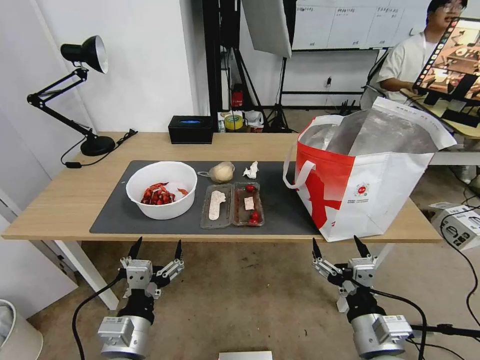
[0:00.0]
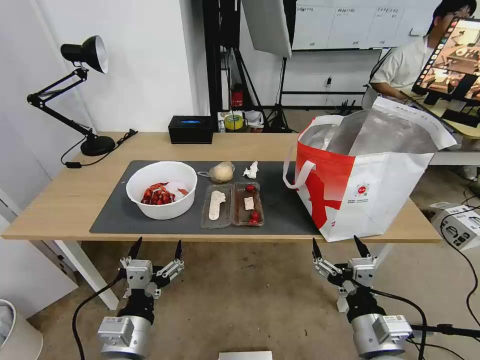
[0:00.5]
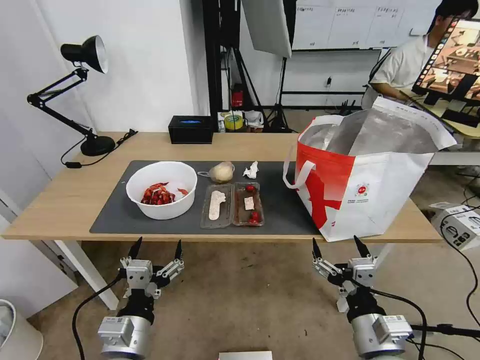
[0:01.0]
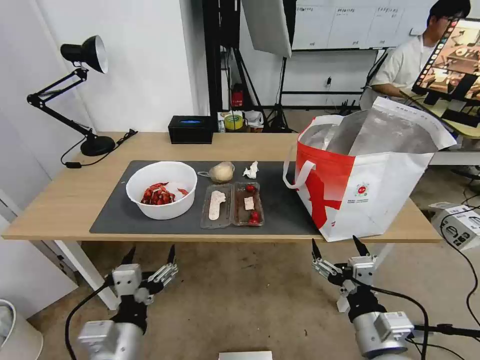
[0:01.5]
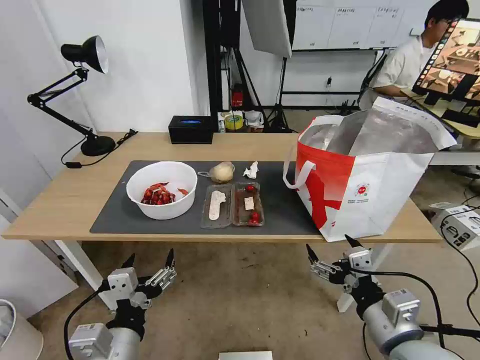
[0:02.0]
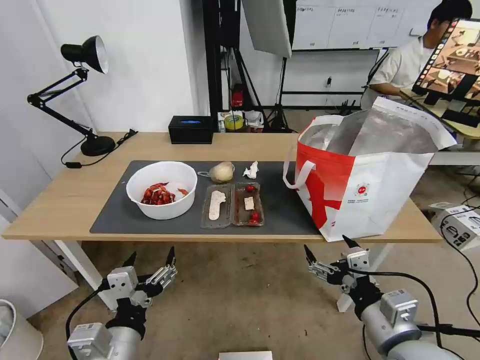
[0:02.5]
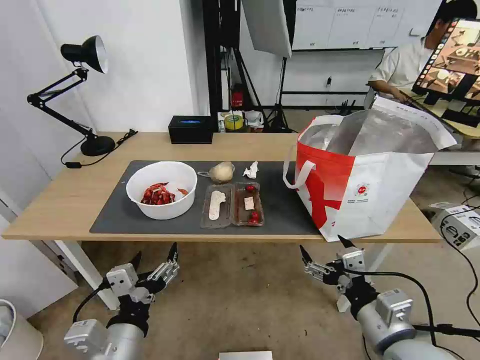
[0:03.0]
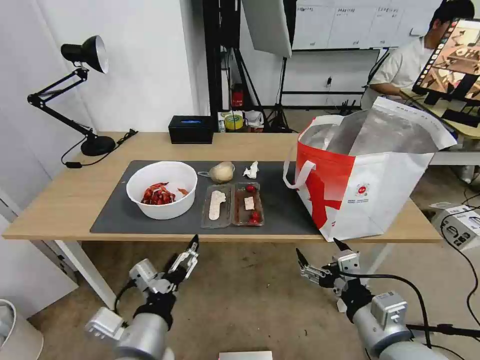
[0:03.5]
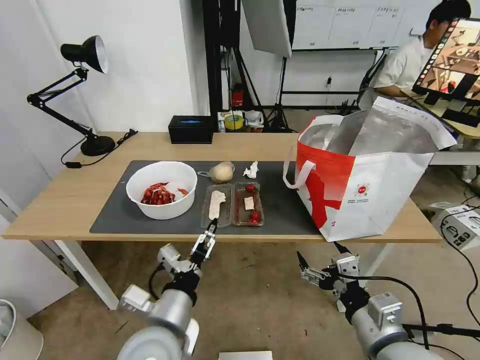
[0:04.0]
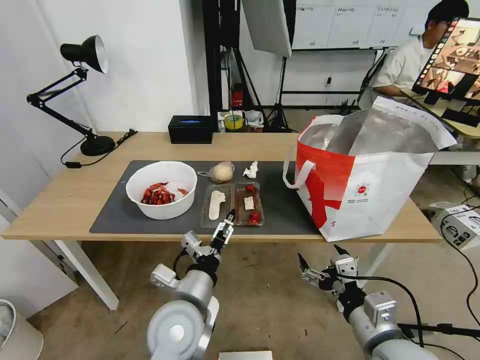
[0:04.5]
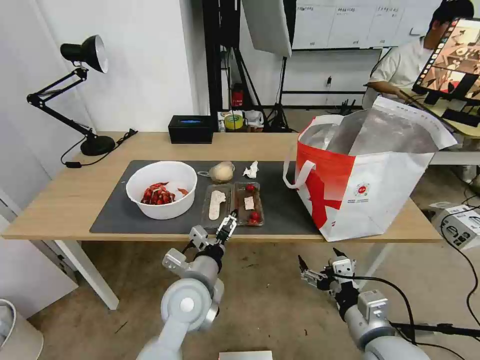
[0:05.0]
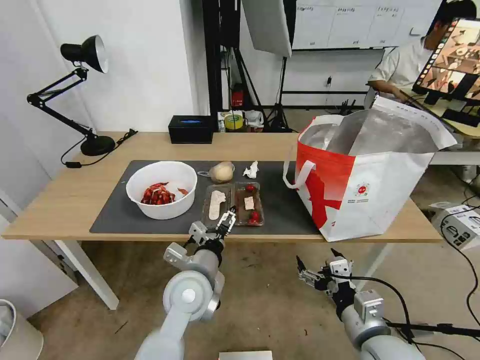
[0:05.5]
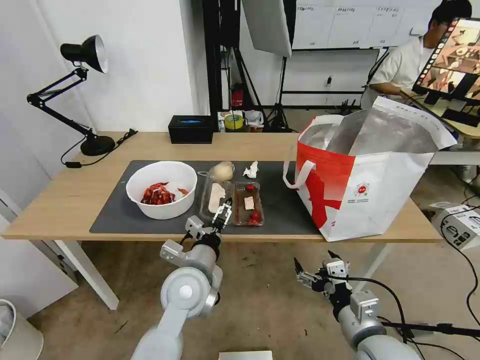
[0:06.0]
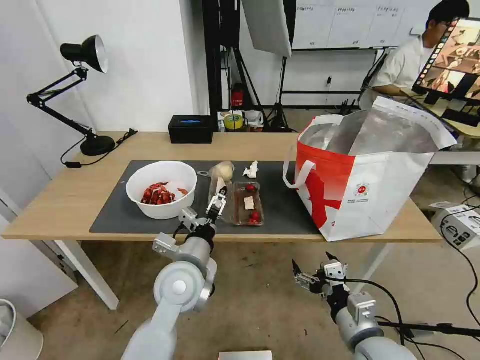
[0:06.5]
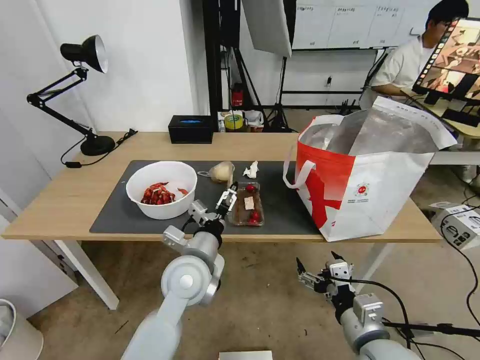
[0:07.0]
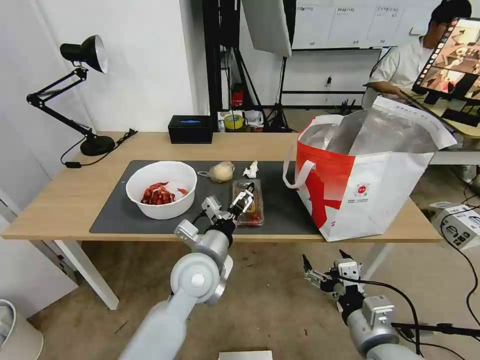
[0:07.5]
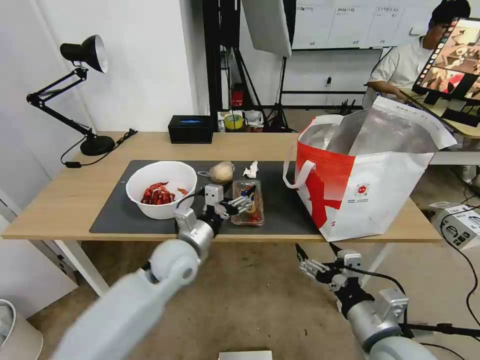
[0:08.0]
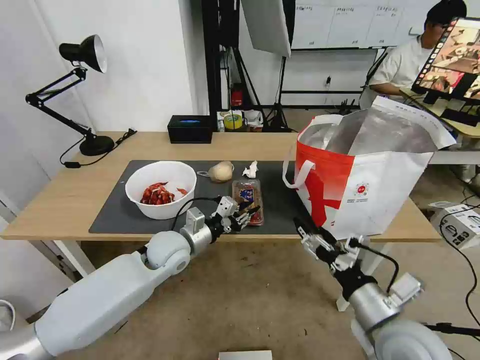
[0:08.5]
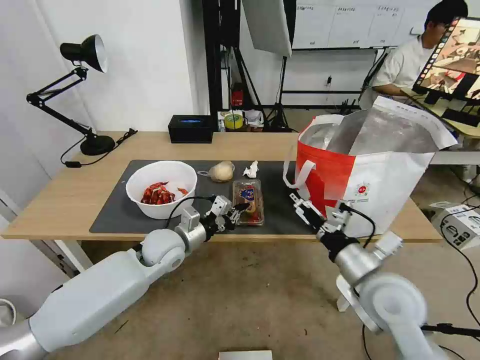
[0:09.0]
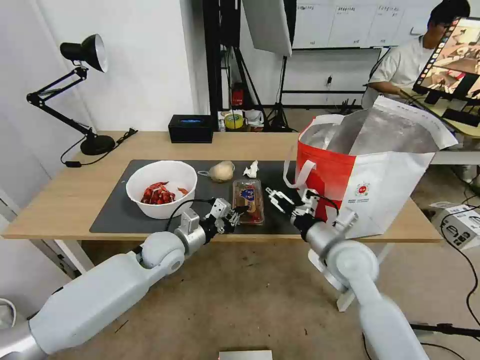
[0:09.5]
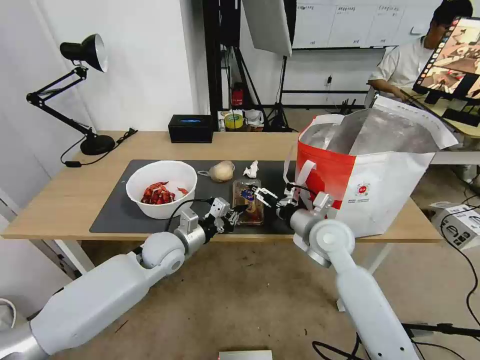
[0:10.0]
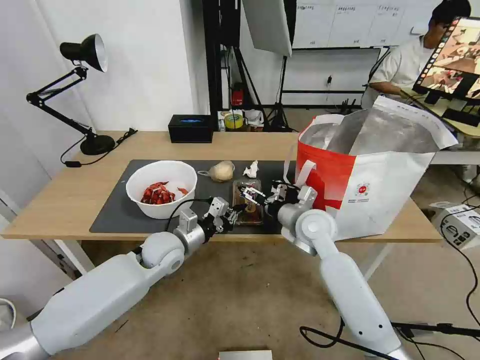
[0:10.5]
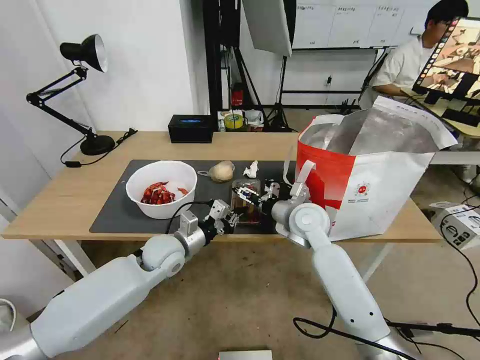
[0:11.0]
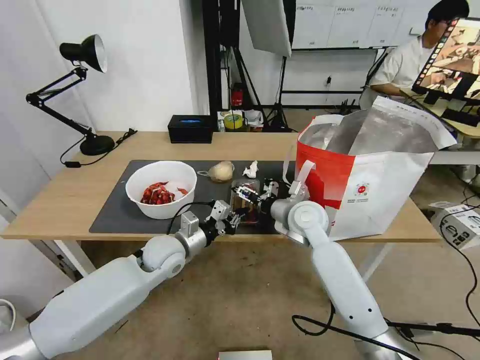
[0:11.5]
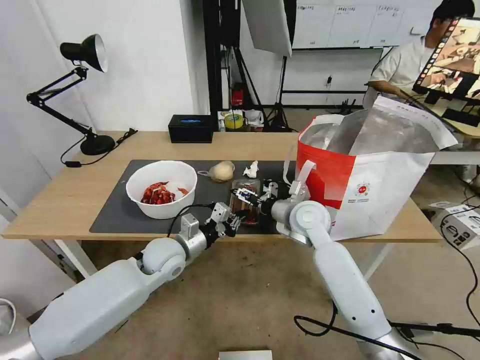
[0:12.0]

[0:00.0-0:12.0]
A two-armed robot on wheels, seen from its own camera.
Task of the whole recording: Pick up the trash from the table and place it into the takeout bag.
0:02.0 to 0:04.0: The left gripper travels forward and to the right by roughly 10 cm.
0:04.0 to 0:06.0: The right gripper travels downward by about 5 cm. Meanwhile the left gripper goes some 10 cm forward.
0:06.0 to 0:08.0: The left gripper heads forward, covering some 5 cm.
0:08.0 to 0:10.0: The right gripper is displaced forward by some 25 cm. The left gripper shifts by some 5 cm, and closes its fingers.
0:10.0 to 0:12.0: The right gripper moves some 5 cm.

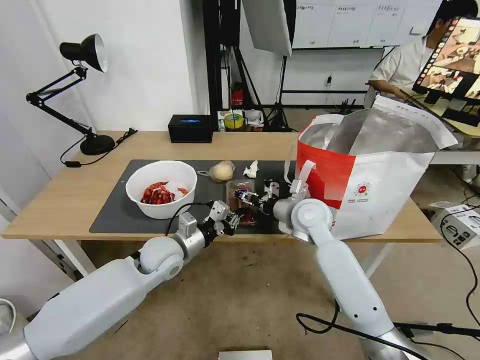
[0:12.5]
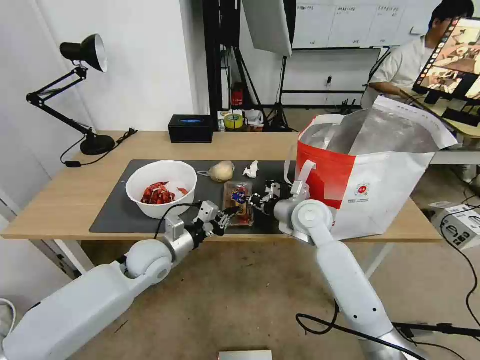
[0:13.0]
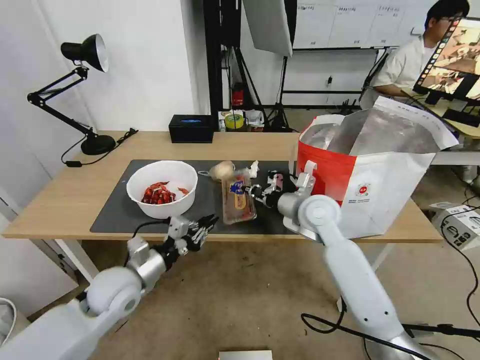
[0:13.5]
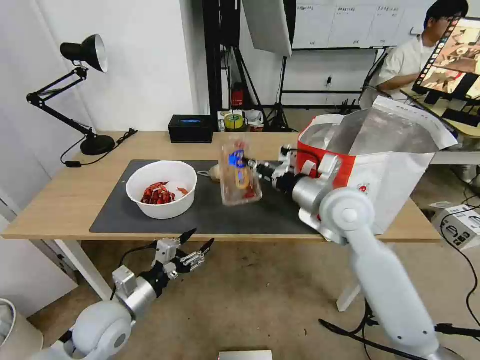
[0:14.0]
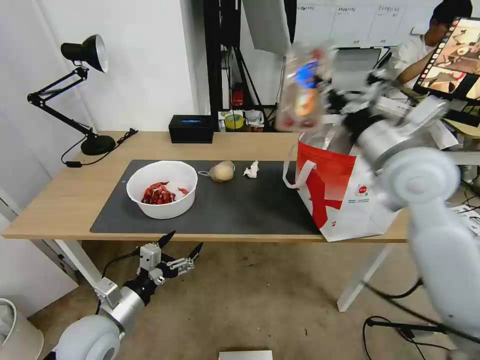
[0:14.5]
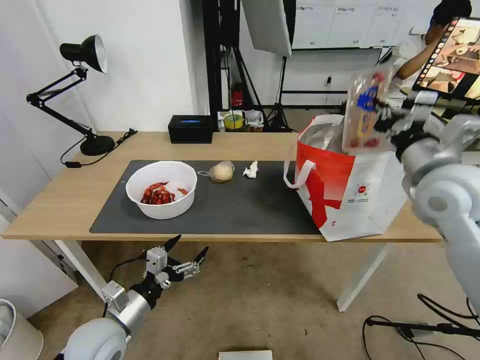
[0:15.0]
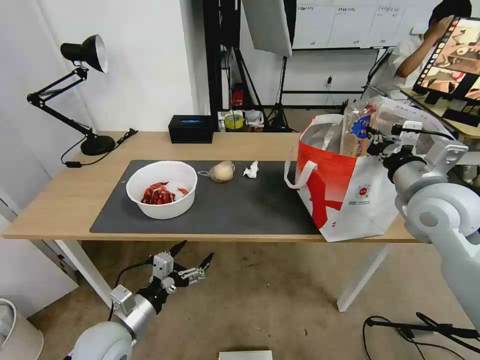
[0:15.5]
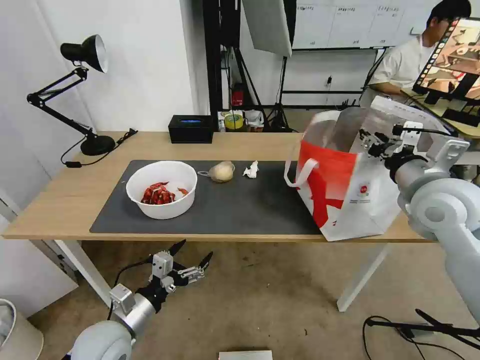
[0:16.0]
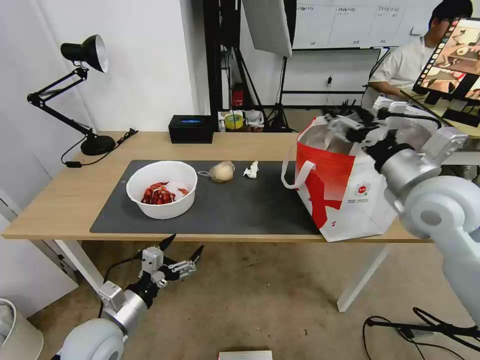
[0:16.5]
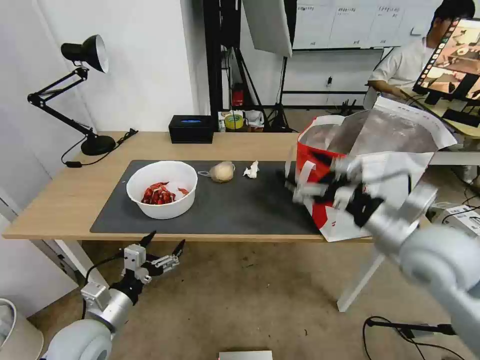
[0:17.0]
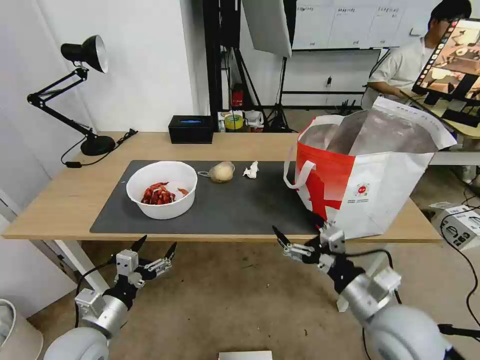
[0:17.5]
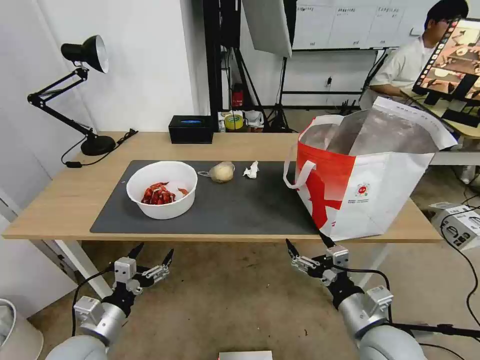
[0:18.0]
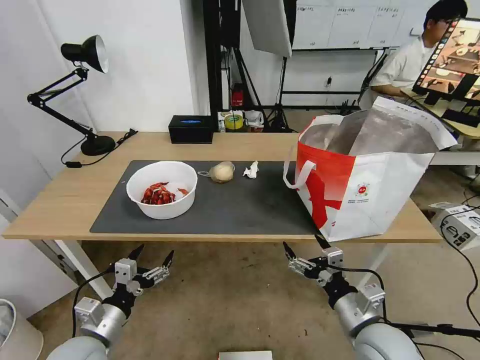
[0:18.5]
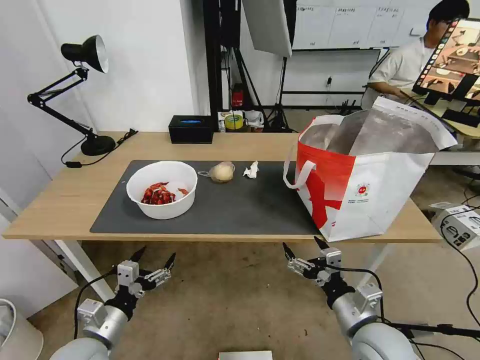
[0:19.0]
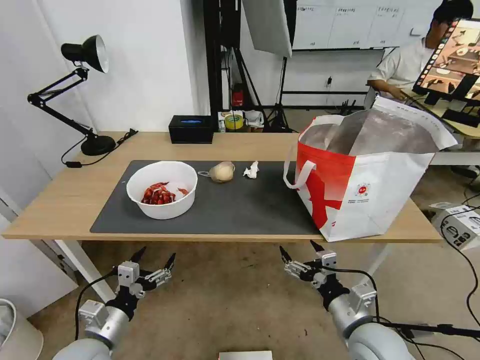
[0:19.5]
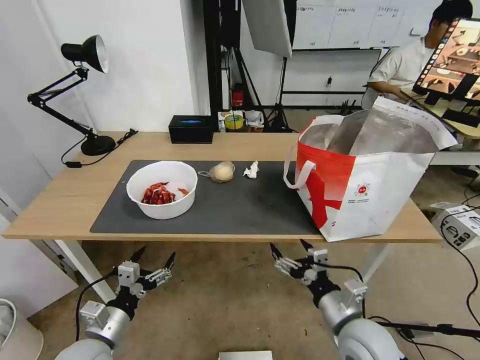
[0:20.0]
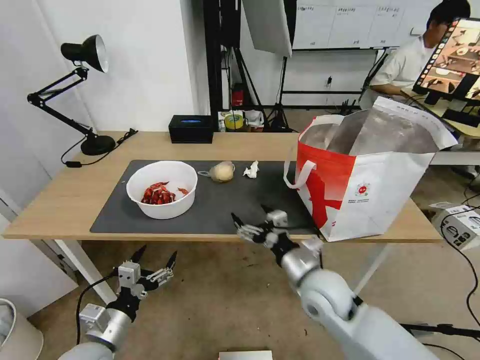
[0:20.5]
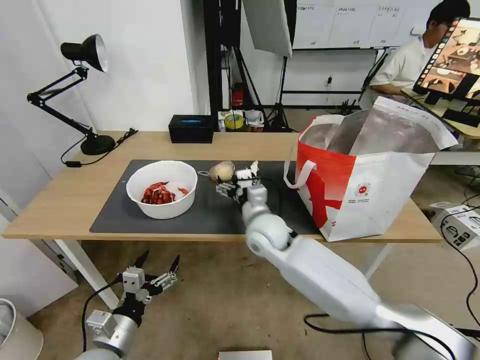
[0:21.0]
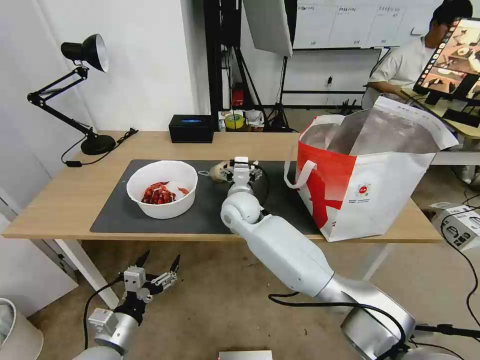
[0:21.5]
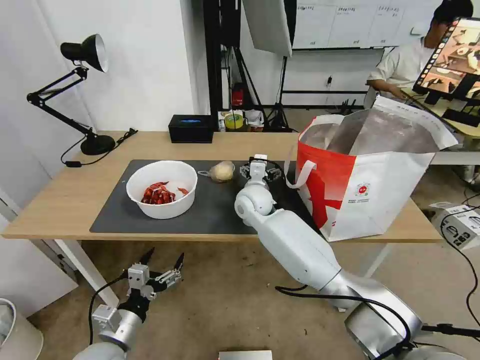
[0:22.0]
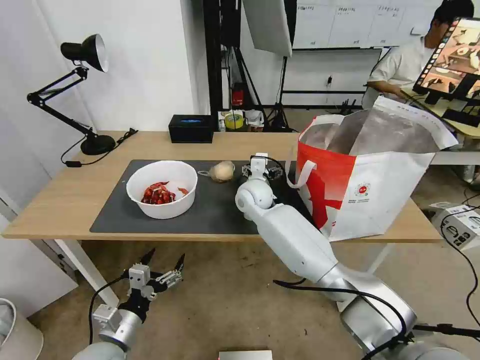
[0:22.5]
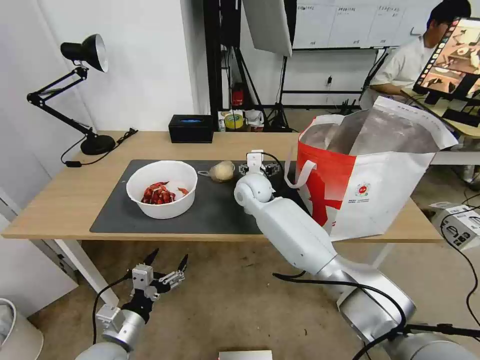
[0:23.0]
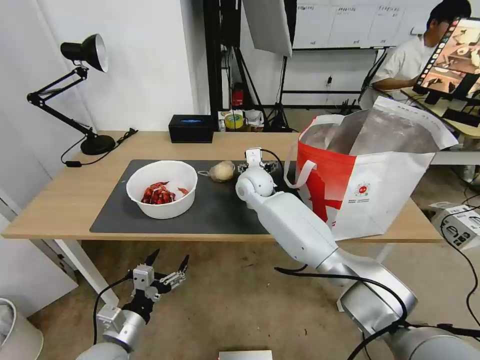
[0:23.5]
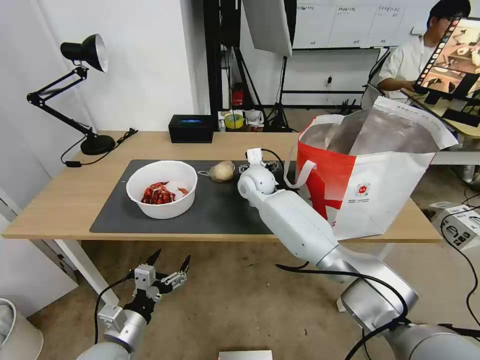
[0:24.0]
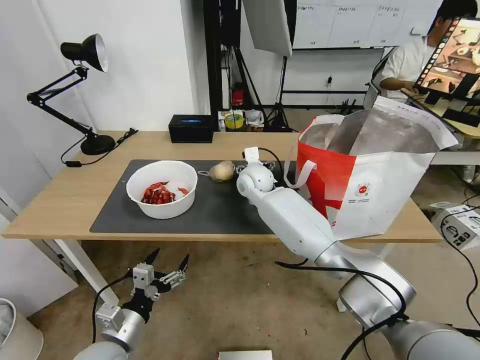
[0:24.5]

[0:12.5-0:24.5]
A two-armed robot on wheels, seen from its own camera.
Task of the whole recording: Pick up the trash from the table and place it into the takeout bag.
0:12.5 to 0:14.5: The left gripper heads backward and to the left, covering about 20 cm, and opens. The right gripper heads upward, to the right and backward, covering about 20 cm, and closes up.
0:14.5 to 0:16.5: The right gripper travels to the right by some 5 cm, and opens its fingers.
0:16.5 to 0:18.5: The right gripper goes about 30 cm downward and backward.
0:18.5 to 0:20.5: The right gripper is displaced forward and to the left by some 15 cm.
0:20.5 to 0:22.5: The right gripper heads forward and to the left, covering roughly 25 cm.
0:22.5 to 0:24.5: The grippers move only a little.

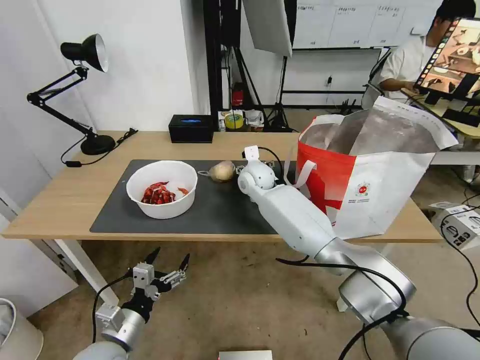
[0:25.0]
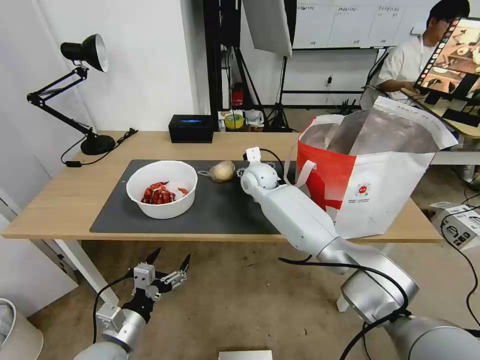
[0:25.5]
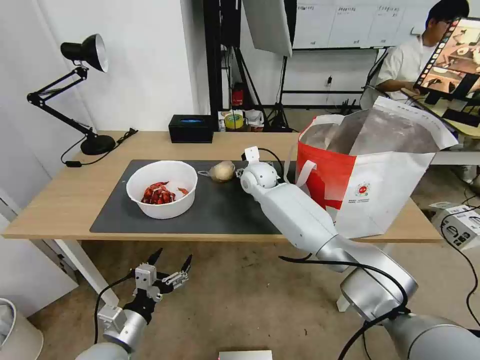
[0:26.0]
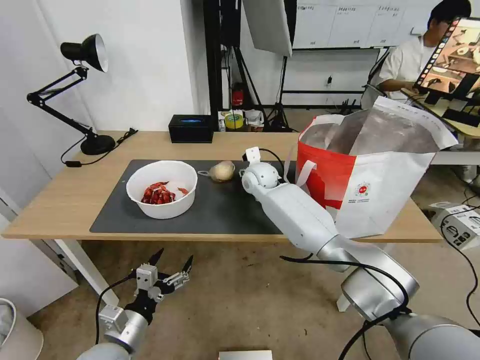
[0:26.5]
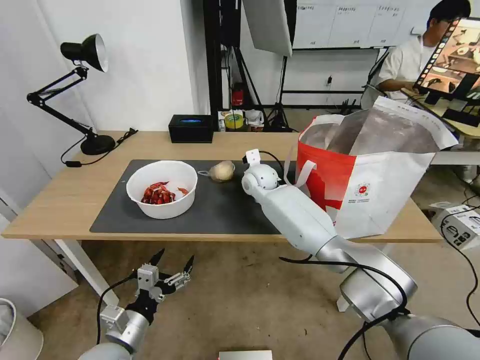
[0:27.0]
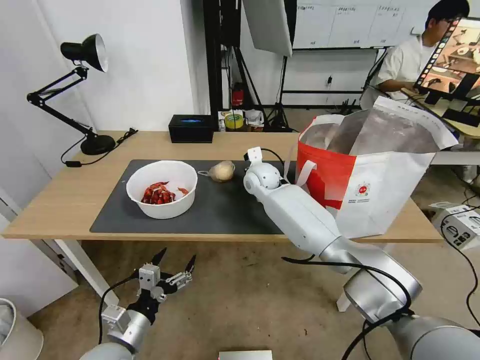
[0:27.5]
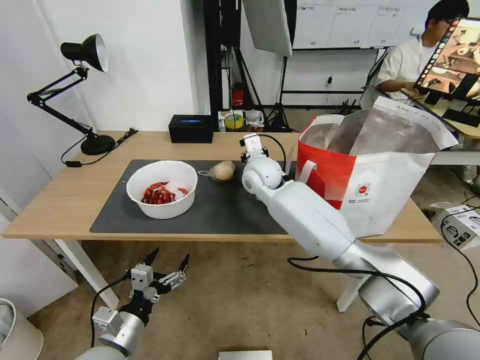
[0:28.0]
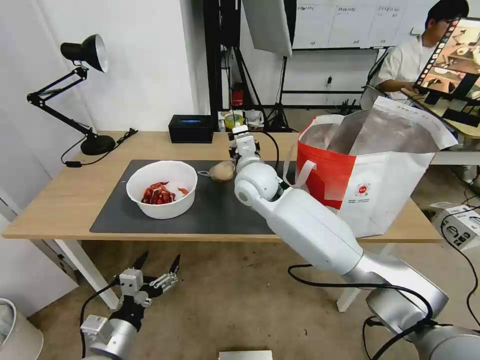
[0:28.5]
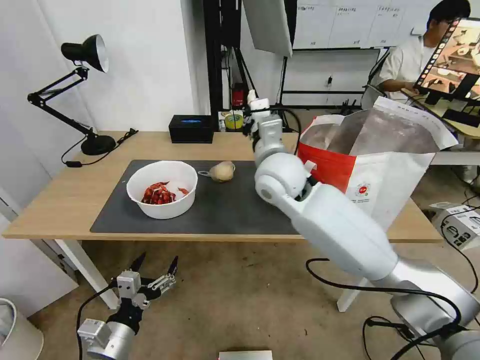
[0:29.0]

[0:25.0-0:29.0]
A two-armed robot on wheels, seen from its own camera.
Task of the whole recording: Pick up the trash from the table and place it into the takeout bag.
0:25.0 to 0:27.0: The right gripper closes up.
0:27.0 to 0:29.0: The right gripper heads backward and upward, covering approximately 20 cm.
